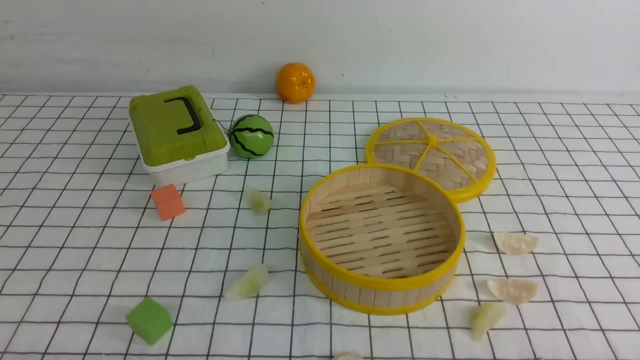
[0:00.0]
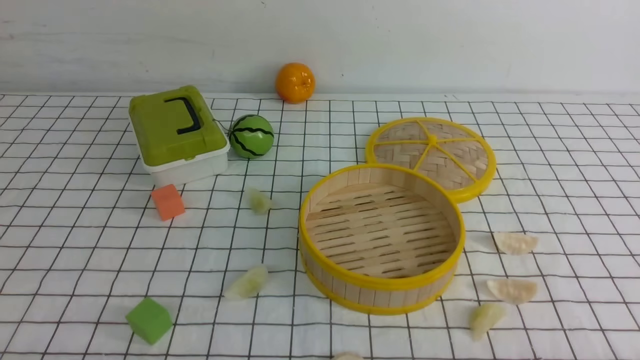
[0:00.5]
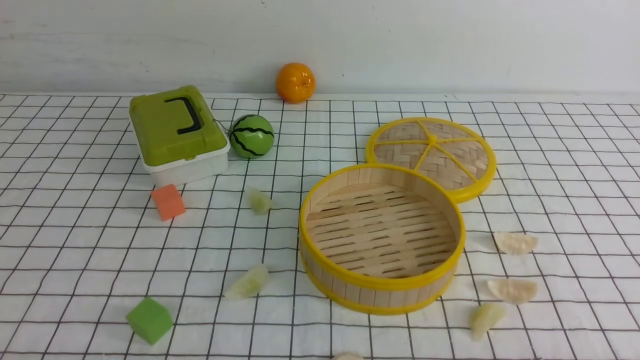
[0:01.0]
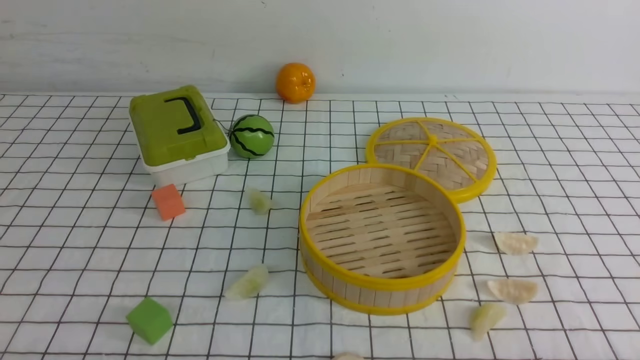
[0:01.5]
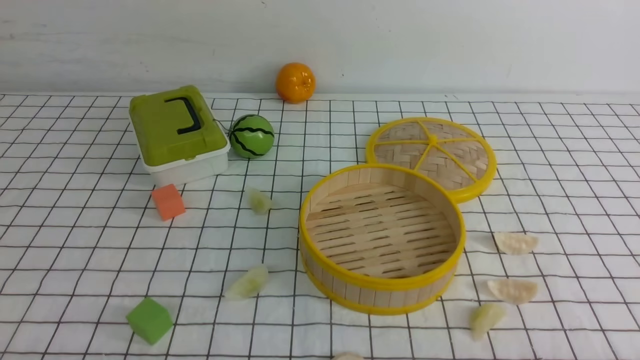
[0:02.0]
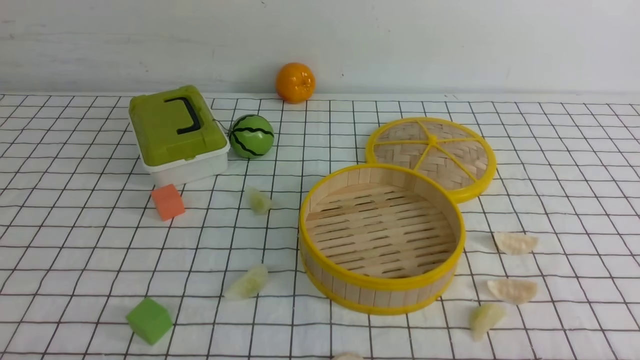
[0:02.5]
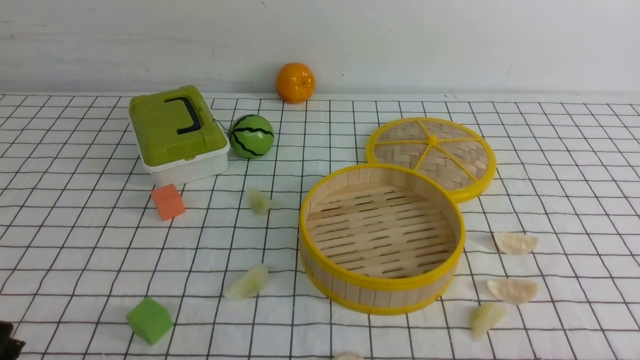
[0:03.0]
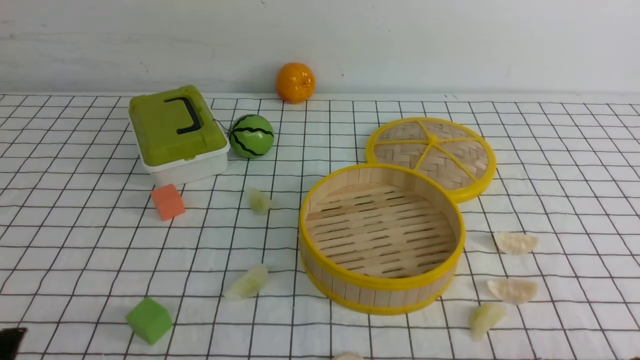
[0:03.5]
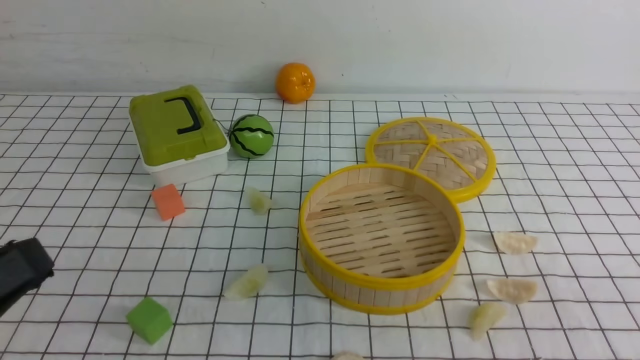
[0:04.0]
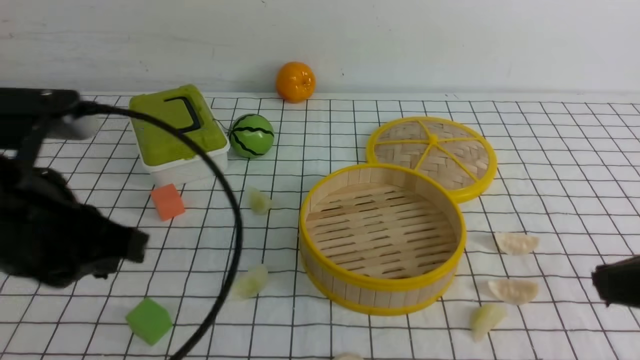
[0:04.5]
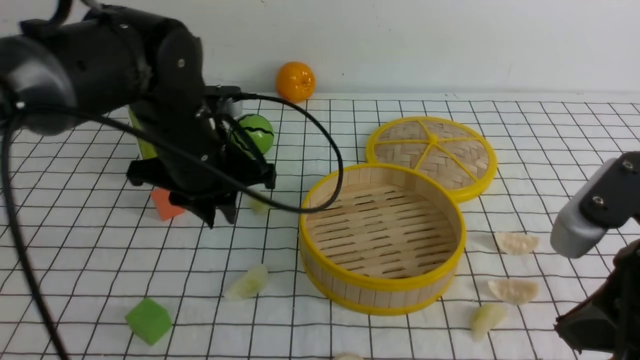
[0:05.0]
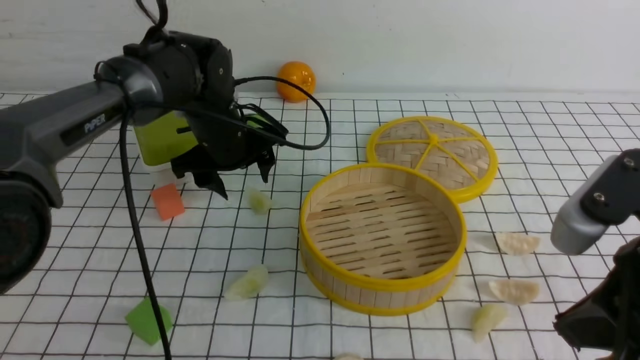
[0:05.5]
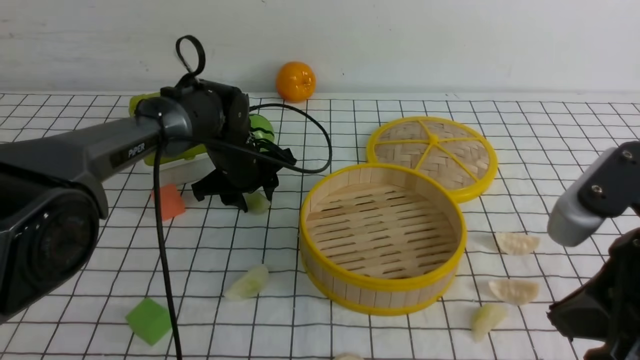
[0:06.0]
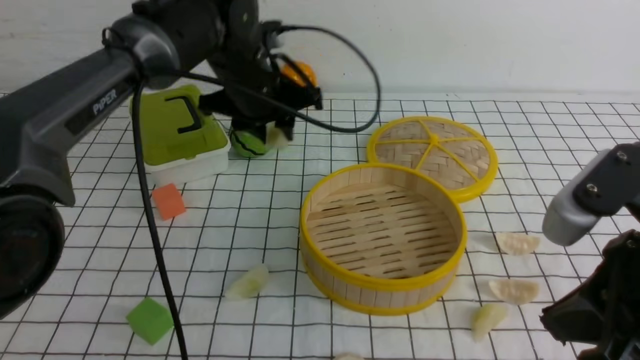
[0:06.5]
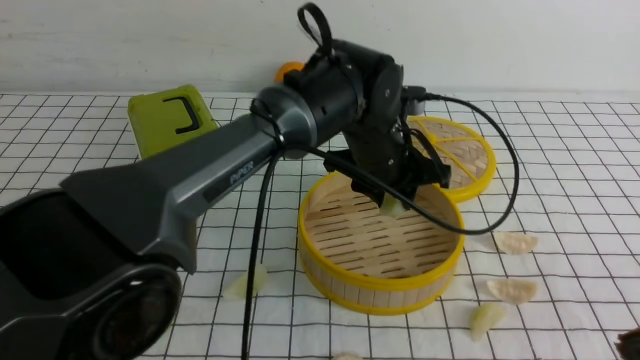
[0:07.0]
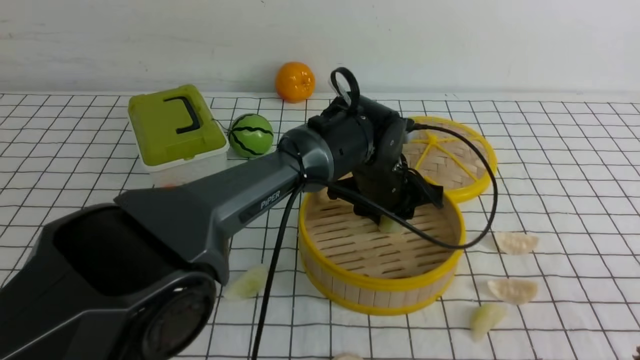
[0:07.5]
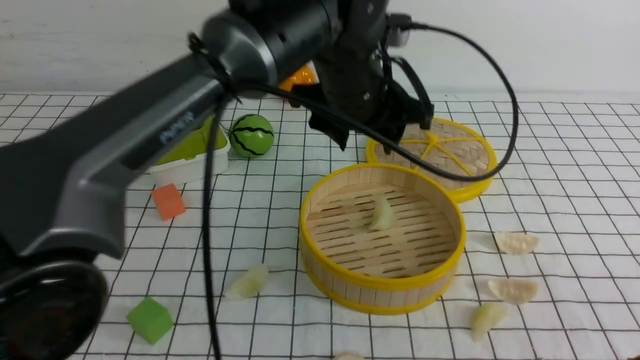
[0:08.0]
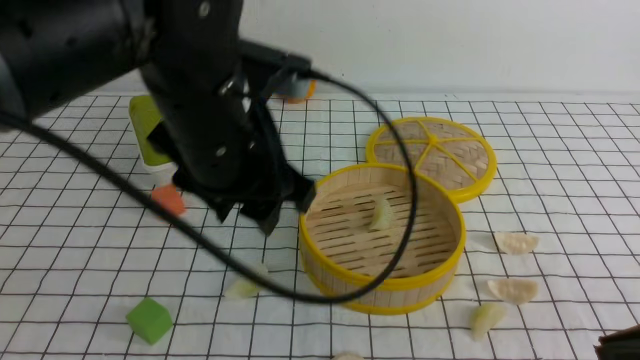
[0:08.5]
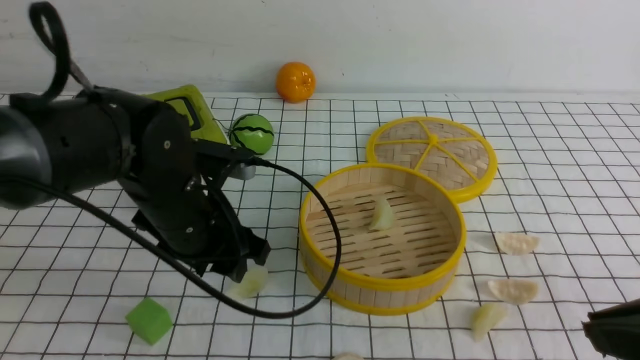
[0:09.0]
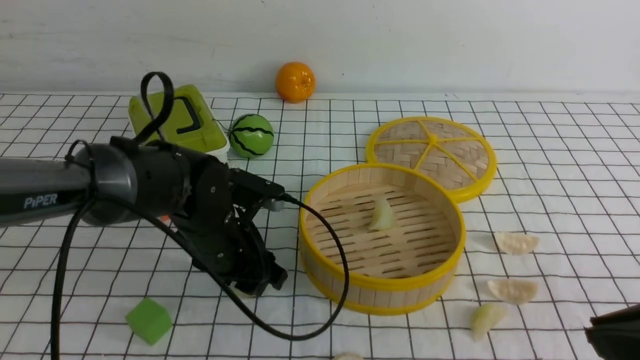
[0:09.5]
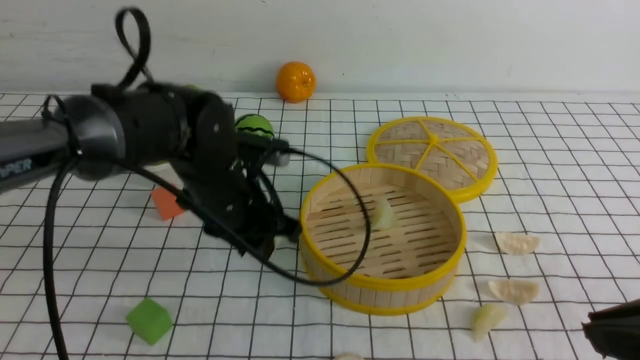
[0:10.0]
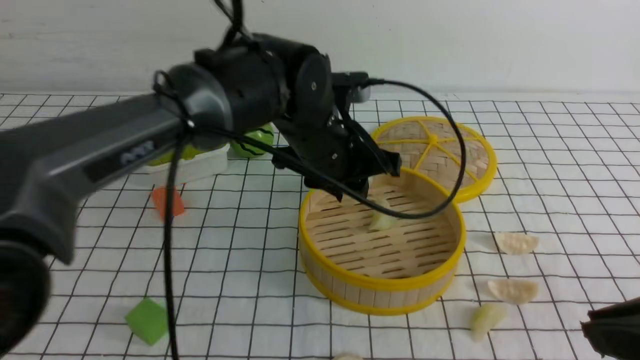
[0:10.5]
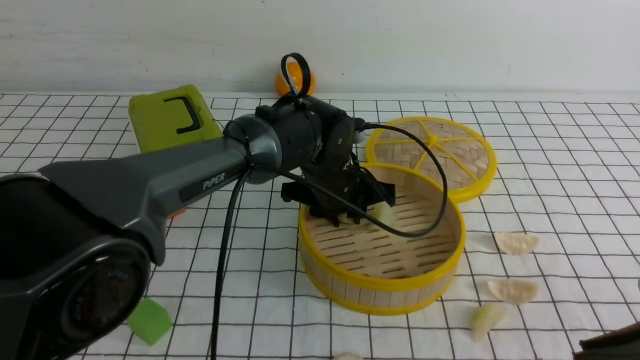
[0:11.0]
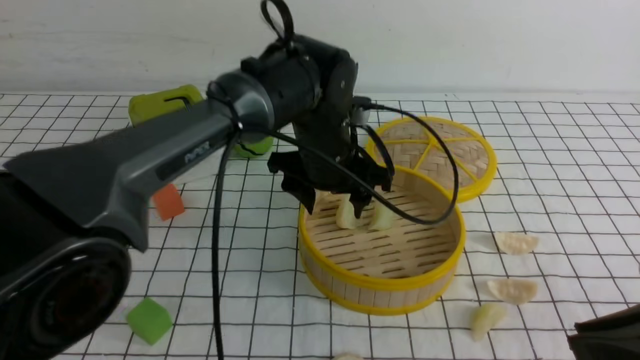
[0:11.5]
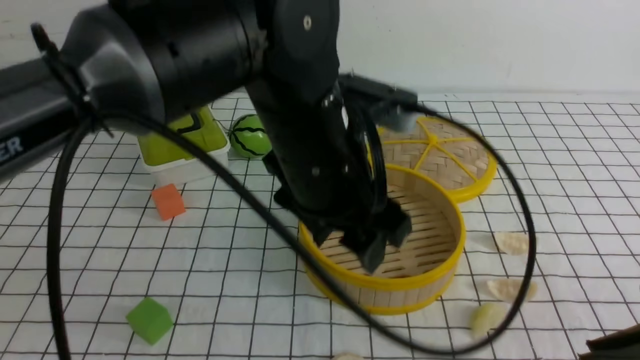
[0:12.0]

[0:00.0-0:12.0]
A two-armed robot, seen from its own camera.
Task of the whole recording: put the dumplings into the steamer on the table with the white tablecloth.
Step, 0:00.0 to 0:09.5: use the left arm to grab a dumpling.
Step, 0:10.0 to 0:11.0: use the left arm to put the dumpling into the steamer.
0:00.0 to 0:02.0: The two grippers keep their place.
0:02.0 to 0:04.0: The left gripper is displaced upward by roughly 15 cm.
0:04.0 to 0:06.0: The left gripper is displaced forward by some 40 cm, and opens up. The right gripper moves forward and to the left, approximately 10 cm, and closes up.
0:06.0 to 0:08.0: The right gripper goes approximately 5 cm backward, while the left gripper shifts about 25 cm upward, to the right and backward.
0:08.0 to 0:10.0: The left gripper shifts some 15 cm downward and to the left, and closes up.
0:10.0 to 0:12.0: The left gripper goes some 15 cm to the right, upward and backward, and opens.

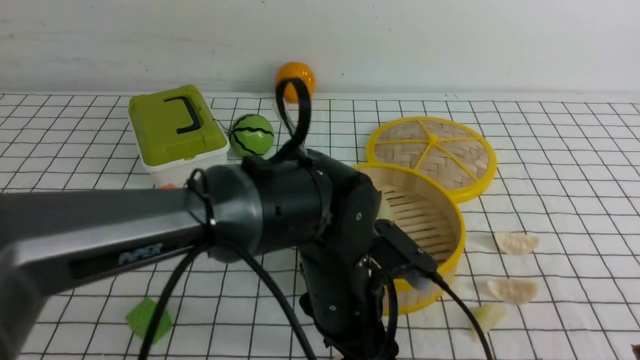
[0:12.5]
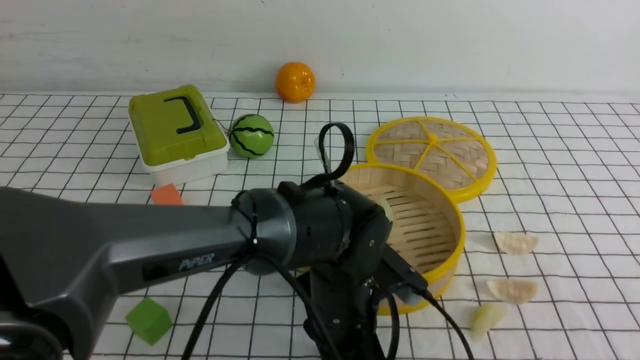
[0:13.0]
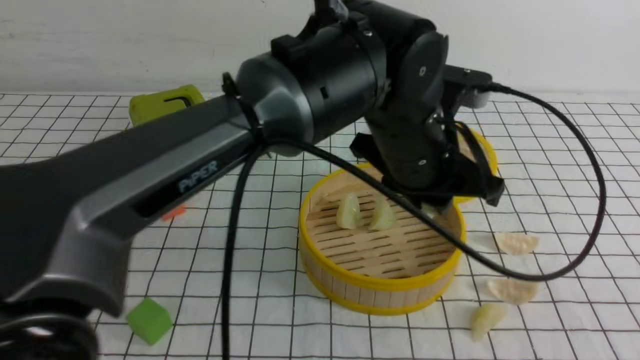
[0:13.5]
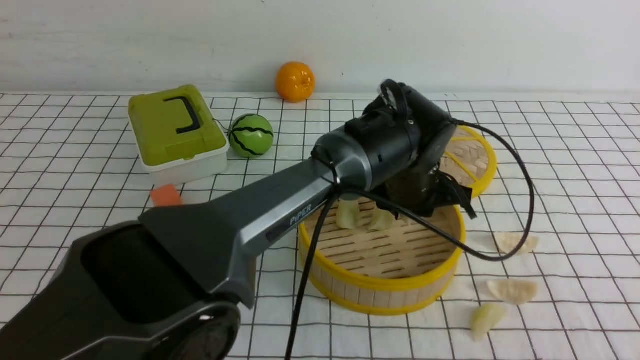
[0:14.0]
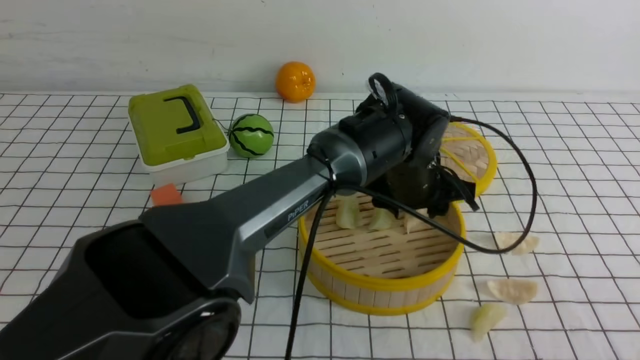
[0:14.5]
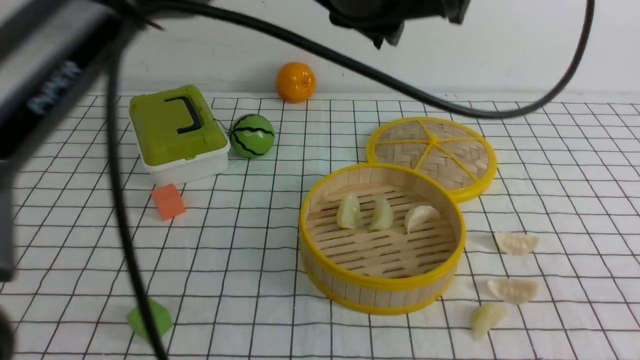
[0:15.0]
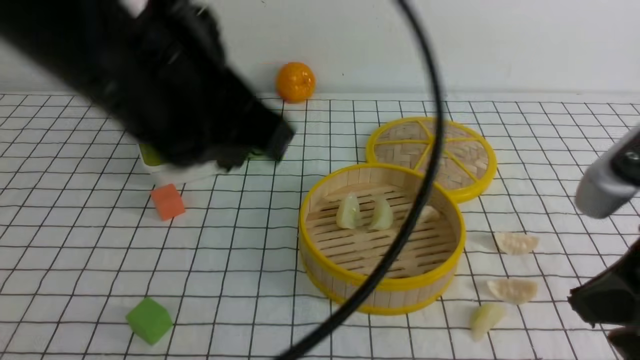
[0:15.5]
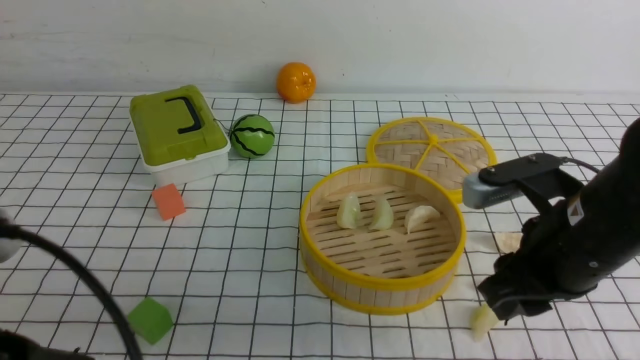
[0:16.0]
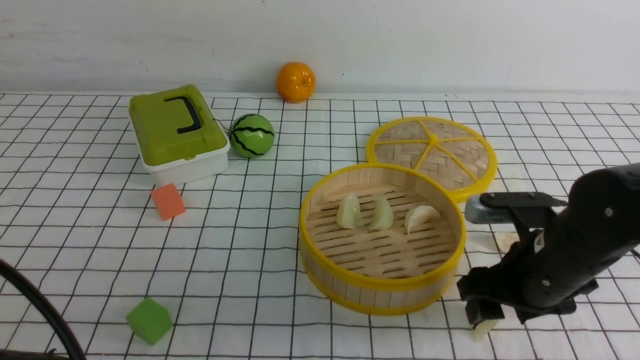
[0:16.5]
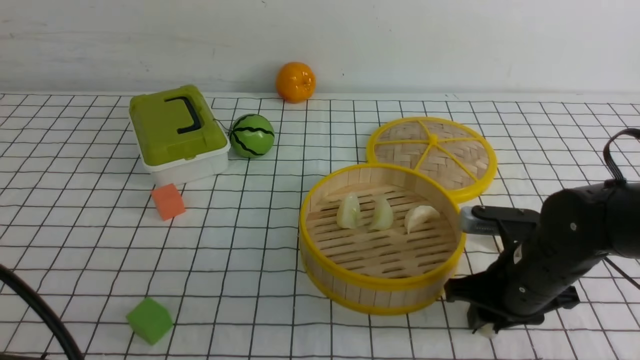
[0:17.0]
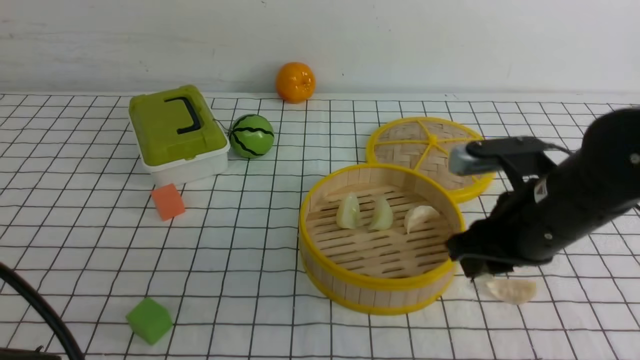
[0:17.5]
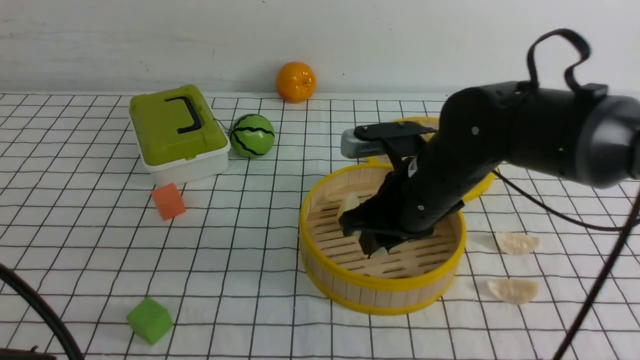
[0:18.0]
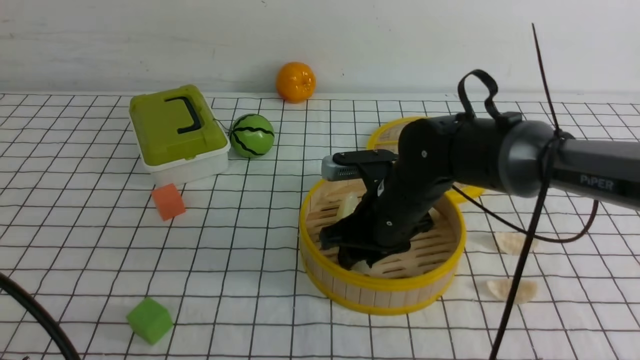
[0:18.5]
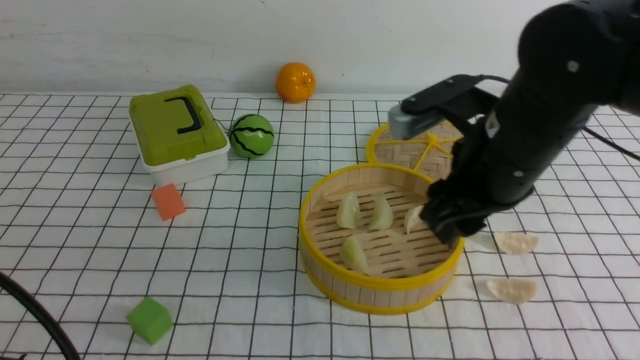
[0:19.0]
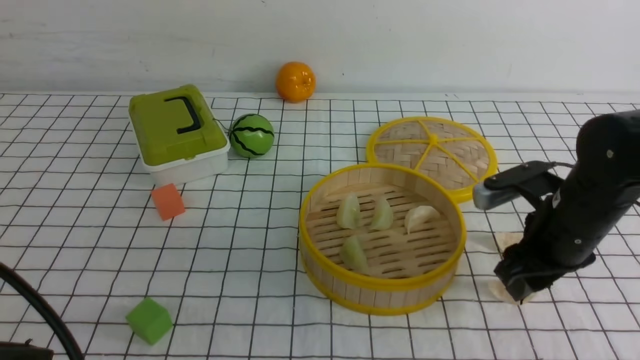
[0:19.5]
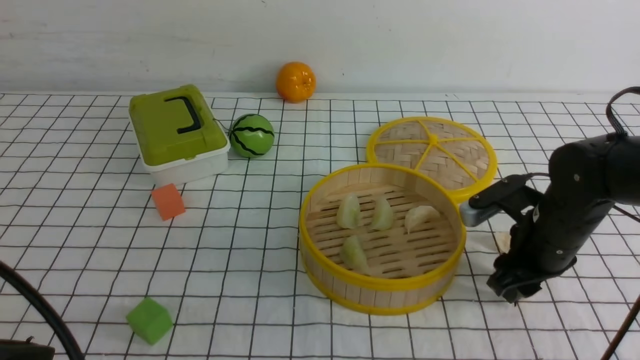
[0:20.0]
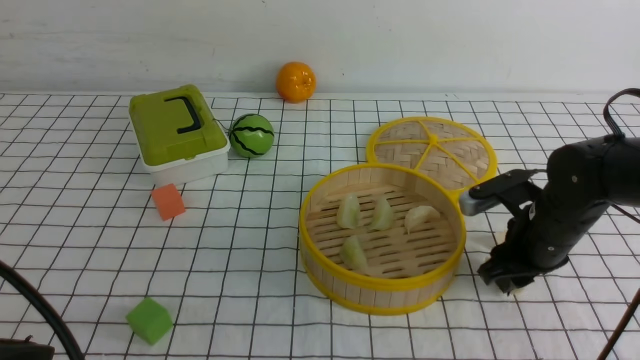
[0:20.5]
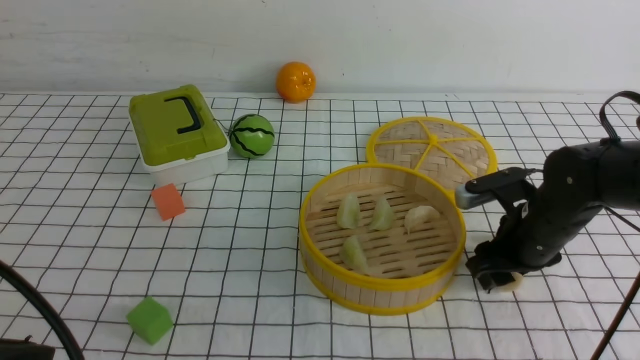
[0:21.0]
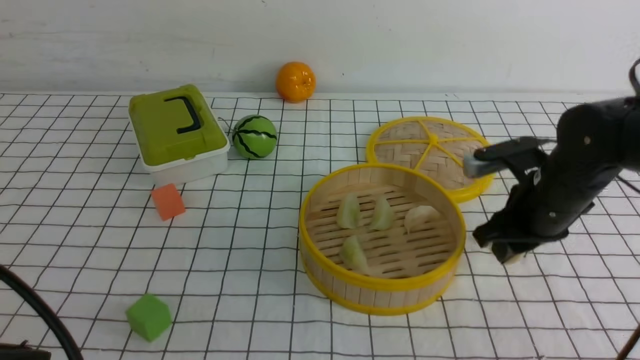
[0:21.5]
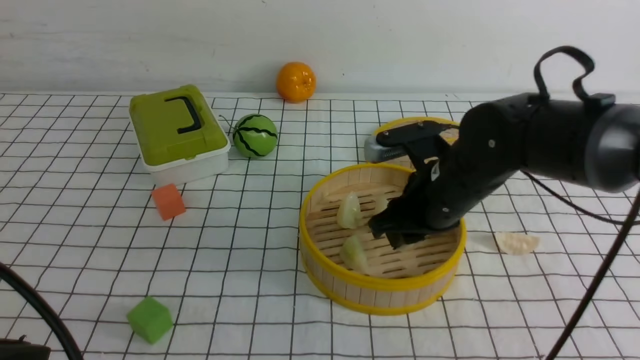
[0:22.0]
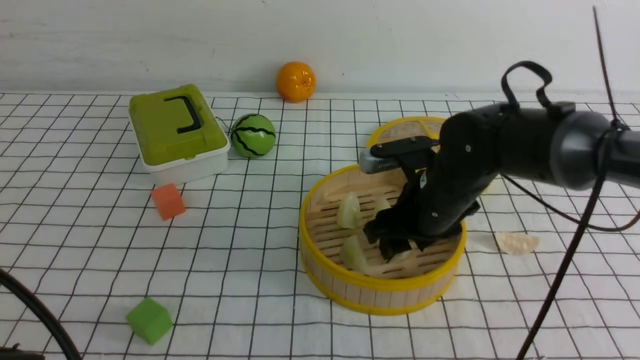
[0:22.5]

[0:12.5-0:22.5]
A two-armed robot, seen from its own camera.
Task of the whole recording: put the dumplings into the steamer on the table with the white tablecloth.
Step, 0:13.5 to 0:14.5: use the left arm to put the dumpling into the steamer.
Step, 0:15.0 to 0:17.0: use the right arm to grab a dumpling.
Step, 0:17.5 to 0:18.5: use the right arm to put the dumpling into the steamer.
Step, 0:19.0 to 0:21.5: use the right arm to grab a dumpling.
0:12.5 to 0:14.5: The left gripper moves forward, to the right and upward, roughly 15 cm.
0:14.5 to 0:16.5: The left gripper is displaced backward and to the left by roughly 40 cm, and closes its fingers; the right gripper travels forward and downward by some 25 cm, and opens.
0:16.5 to 0:18.5: The right gripper goes some 15 cm to the left and forward.
0:18.5 to 0:20.5: The right gripper travels to the right by about 15 cm.
0:20.5 to 0:22.5: The right gripper travels to the left and upward by about 15 cm.
